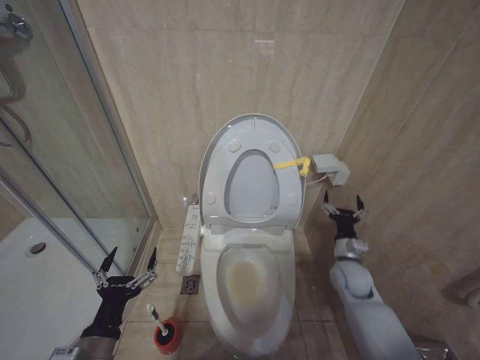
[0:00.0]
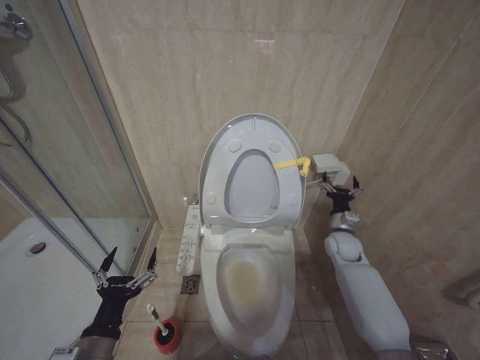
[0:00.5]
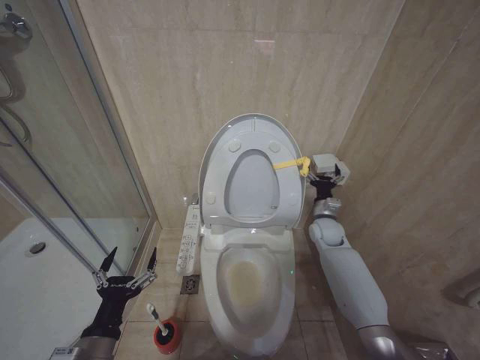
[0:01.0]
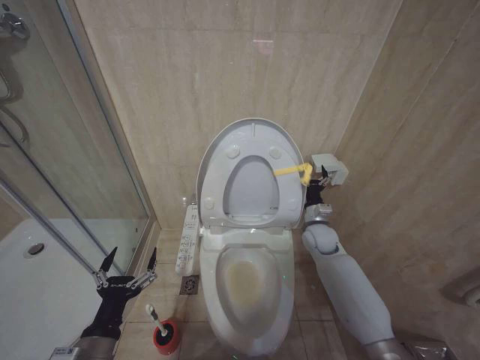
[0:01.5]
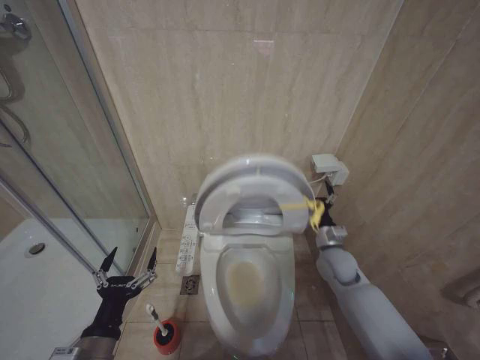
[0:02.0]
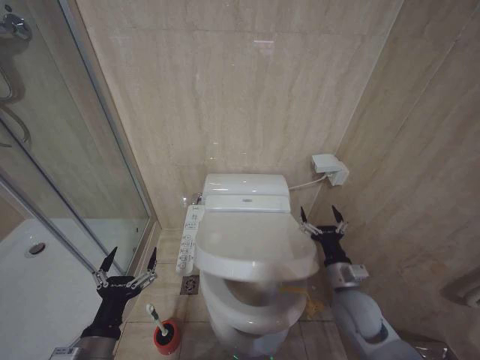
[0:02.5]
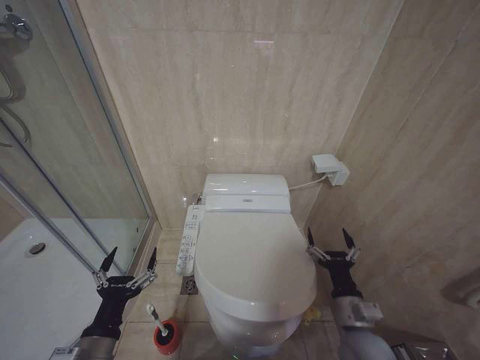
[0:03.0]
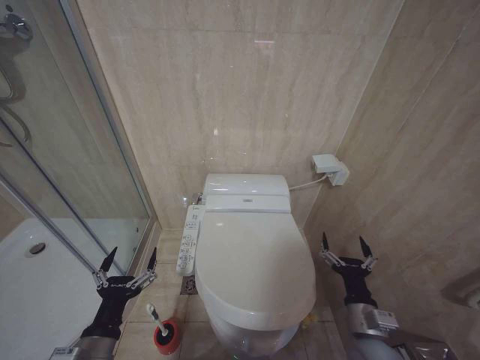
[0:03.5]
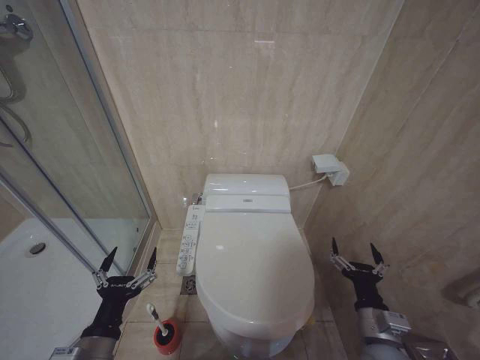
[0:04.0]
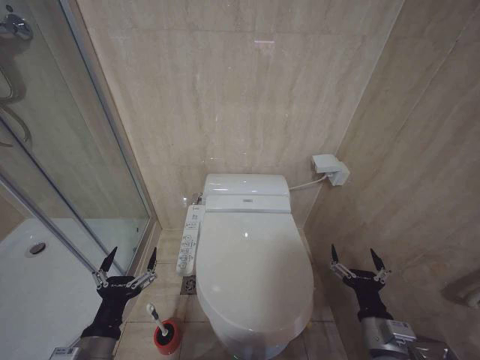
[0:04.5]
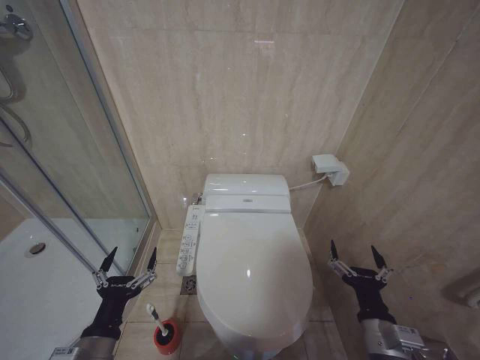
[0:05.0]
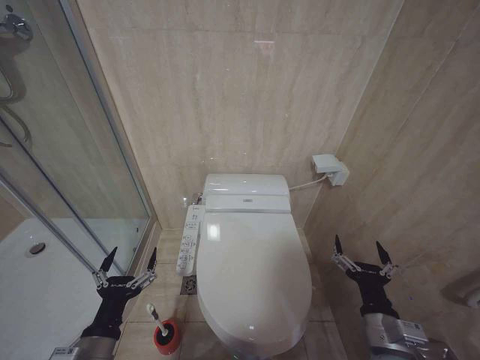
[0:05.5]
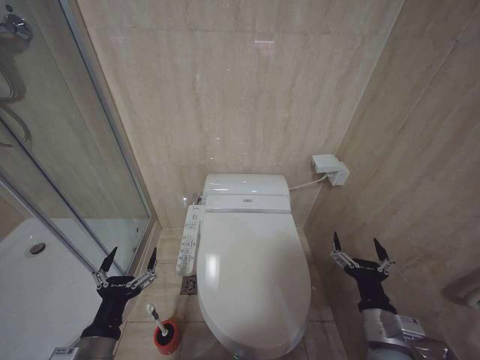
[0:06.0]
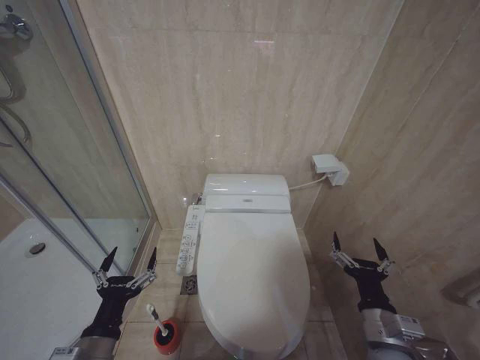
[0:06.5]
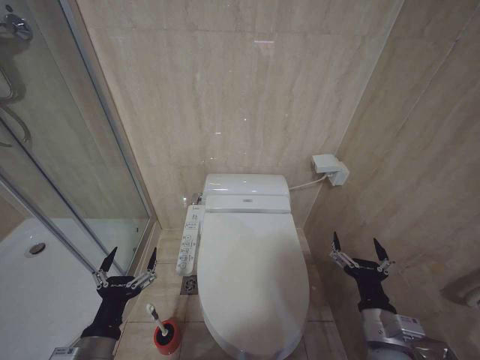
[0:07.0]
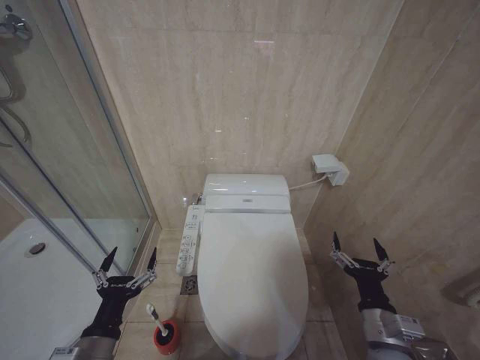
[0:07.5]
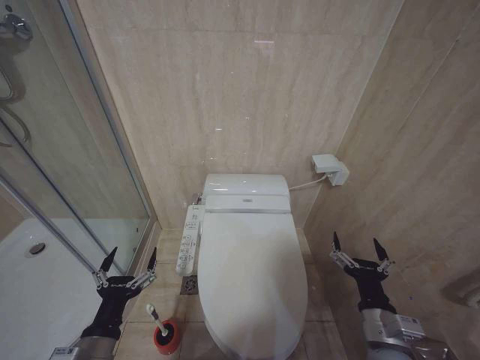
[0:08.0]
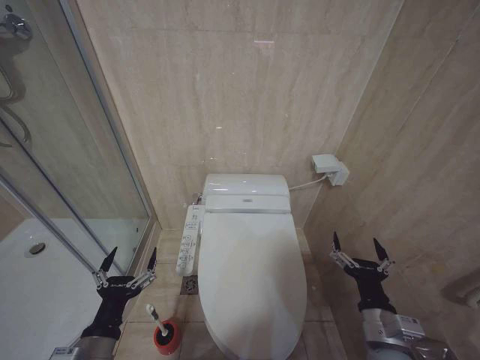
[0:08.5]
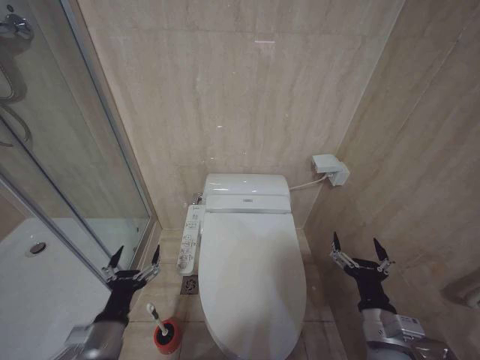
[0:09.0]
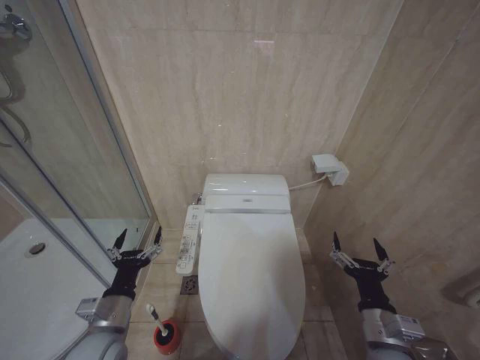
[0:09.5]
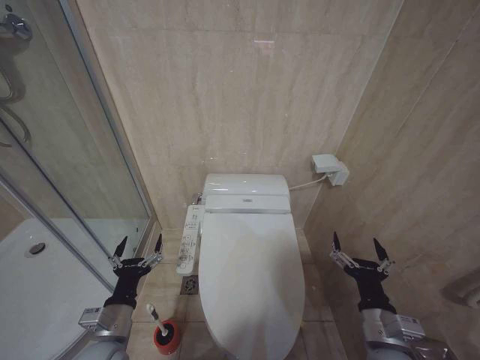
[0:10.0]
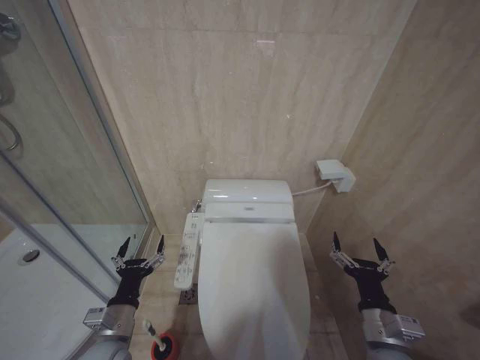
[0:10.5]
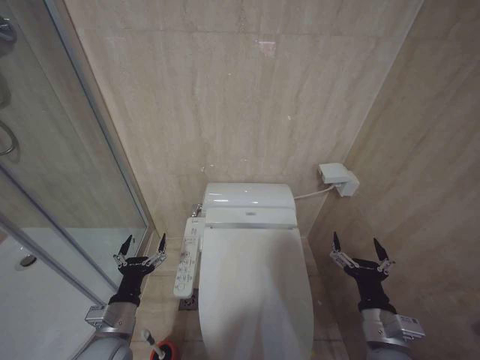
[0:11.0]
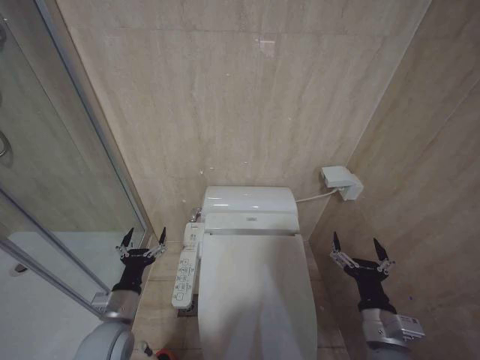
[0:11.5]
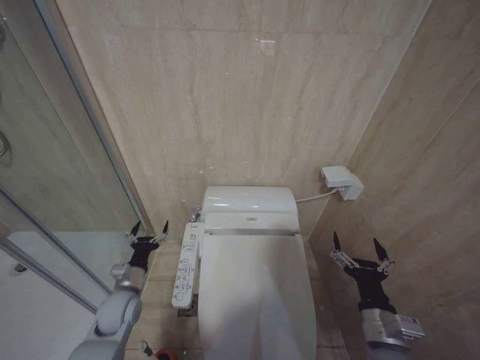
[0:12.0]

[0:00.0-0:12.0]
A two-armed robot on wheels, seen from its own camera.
Task of the whole recording: Open the toilet lid, clean the toilet bowl with a toilet brush, close the toilet lid, and flush.
0:00.0 to 0:02.0: The right gripper goes about 5 cm forward.
0:02.0 to 0:04.0: The right gripper is displaced backward by roughly 20 cm.
0:04.0 to 0:06.0: The grippers make only small movements.
0:06.0 to 0:08.0: The two grippers keep their place.
0:08.0 to 0:10.0: The left gripper heads forward, covering some 5 cm.
0:10.0 to 0:12.0: The left gripper moves forward and downward, about 10 cm.

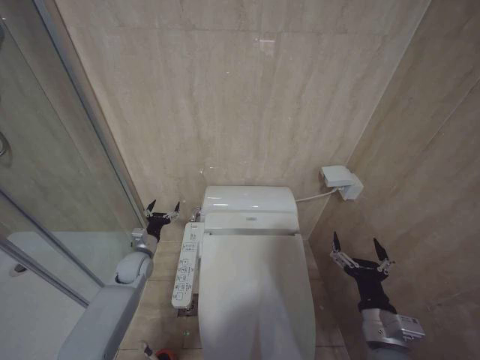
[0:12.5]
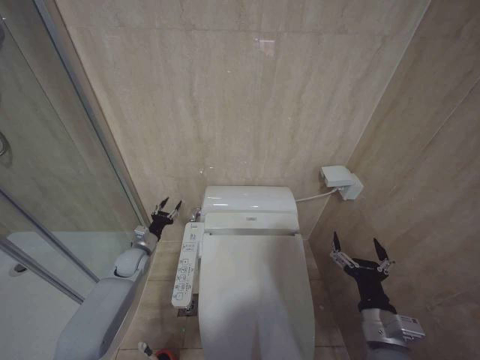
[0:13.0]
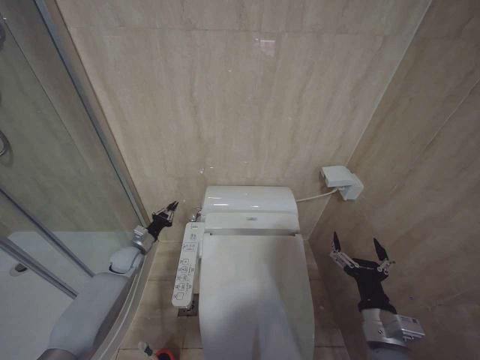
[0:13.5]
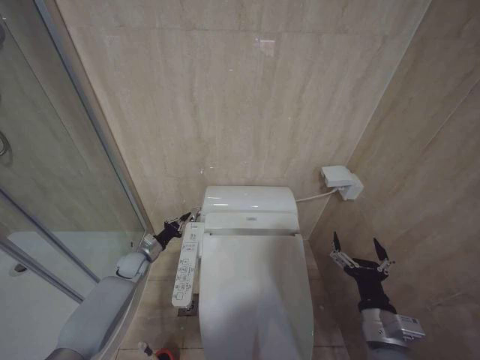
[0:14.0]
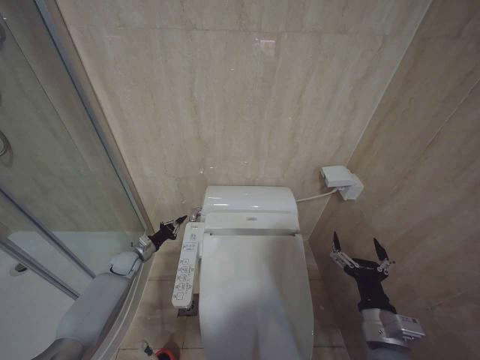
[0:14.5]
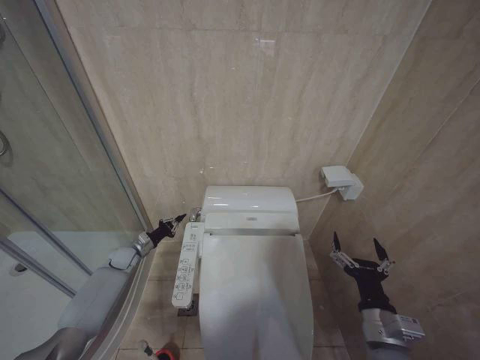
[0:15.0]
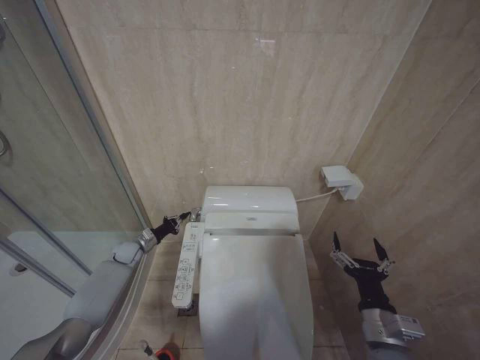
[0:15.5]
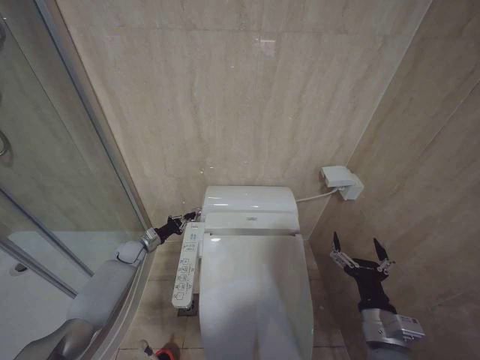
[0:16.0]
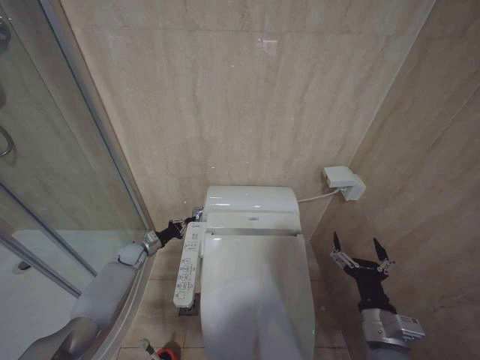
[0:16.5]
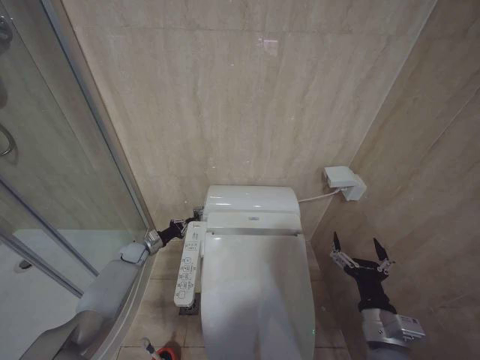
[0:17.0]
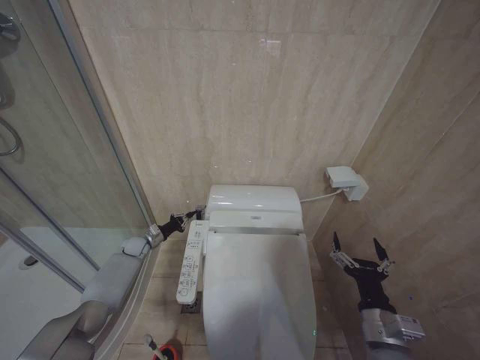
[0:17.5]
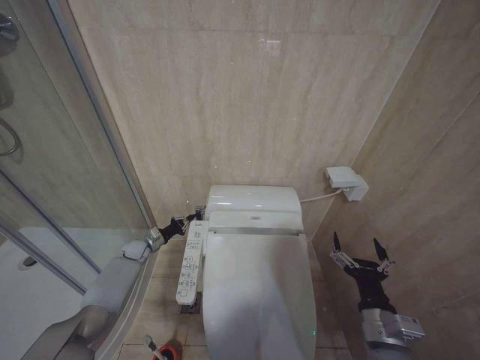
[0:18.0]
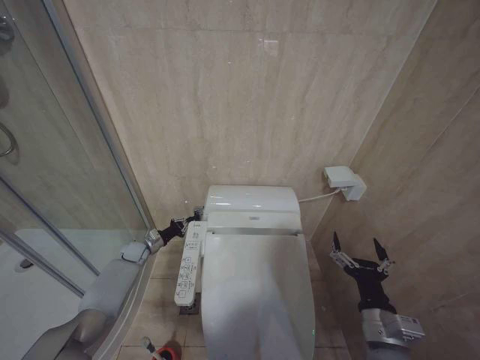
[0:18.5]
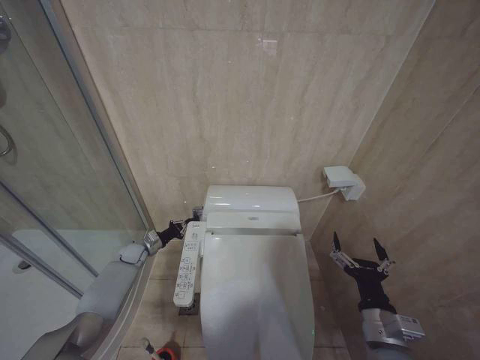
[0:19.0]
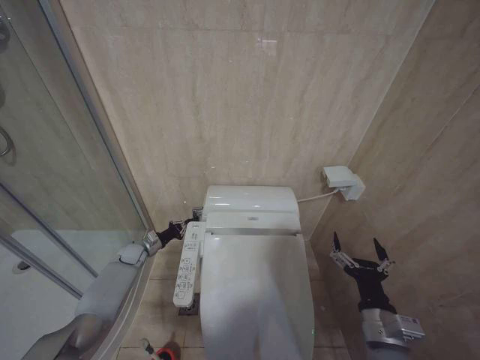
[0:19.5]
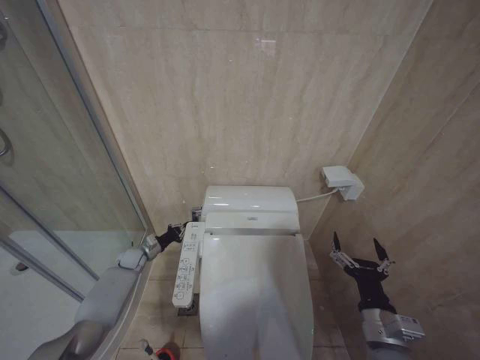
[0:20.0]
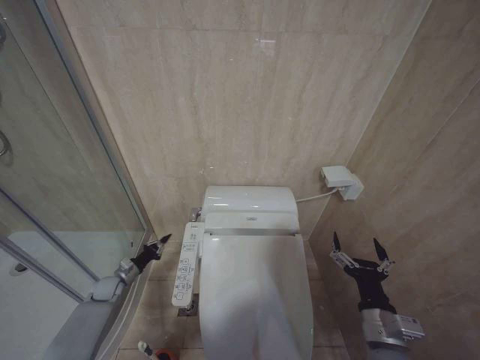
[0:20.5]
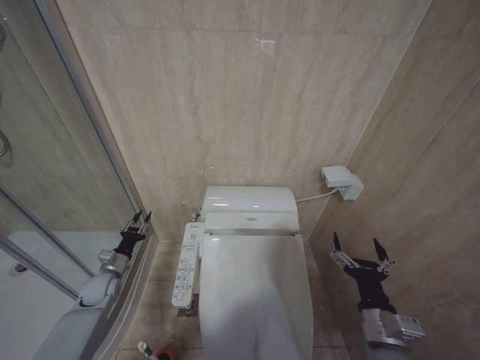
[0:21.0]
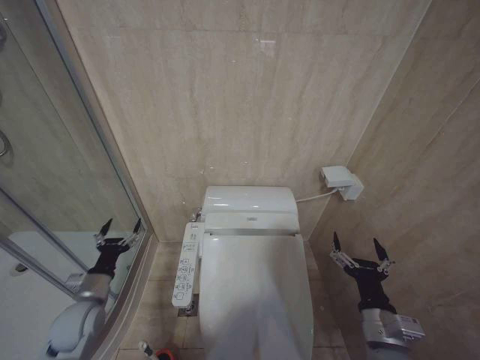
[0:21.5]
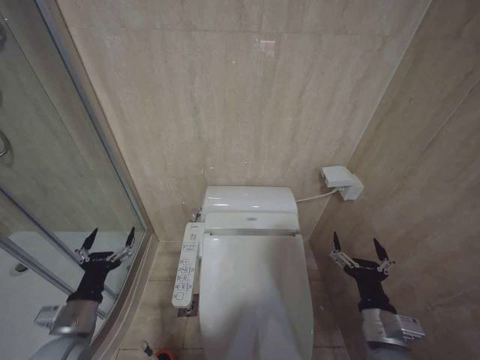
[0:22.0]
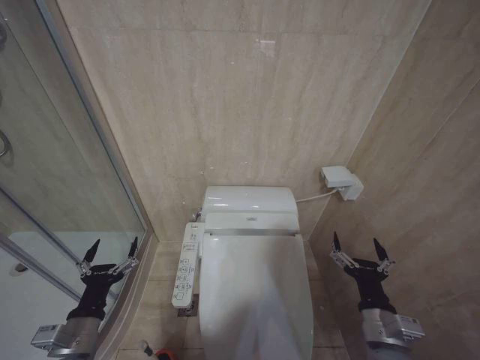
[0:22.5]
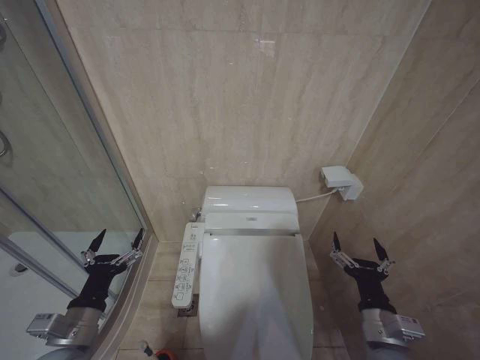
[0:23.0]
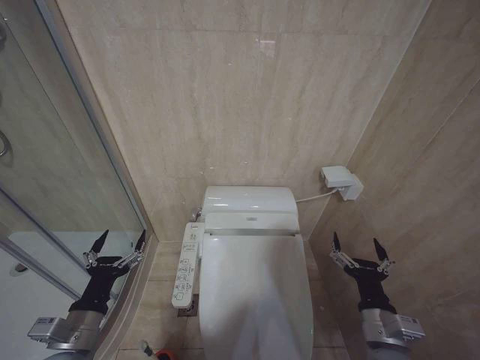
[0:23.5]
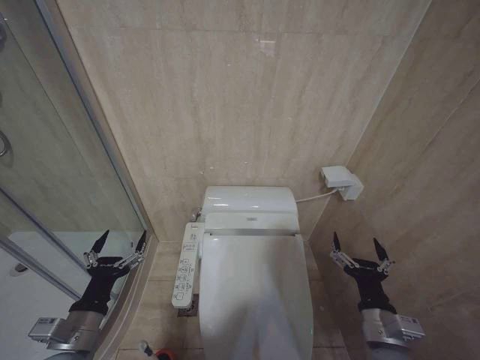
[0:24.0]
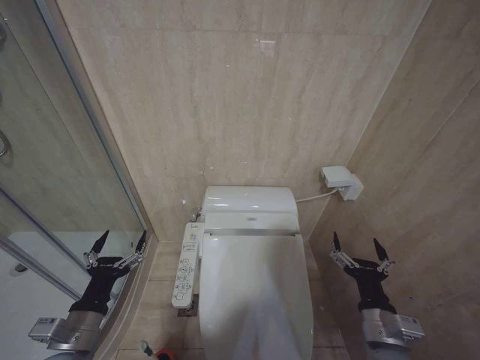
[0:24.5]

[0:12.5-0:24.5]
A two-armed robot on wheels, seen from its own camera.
Task of the whole recording: Open the toilet lid, clean the toilet bowl with a toilet brush, close the toilet lid, and flush.
0:12.5 to 0:14.5: The left gripper goes some 10 cm to the left, forward and downward, and closes up.
0:14.5 to 0:18.5: The grippers stay close to where they were, moving slightly.
0:18.5 to 0:20.5: The left gripper is displaced backward and to the left by some 10 cm.
0:20.5 to 0:22.5: The left gripper heads backward and upward, covering some 30 cm, and opens up.
0:22.5 to 0:24.5: There are only small adjustments of the grippers.

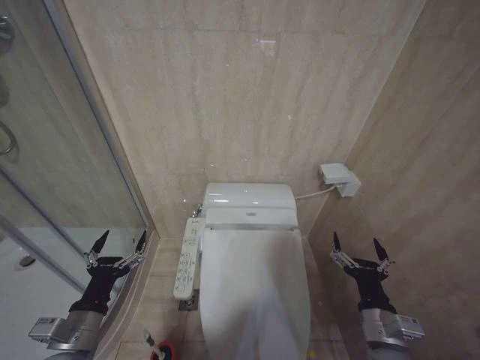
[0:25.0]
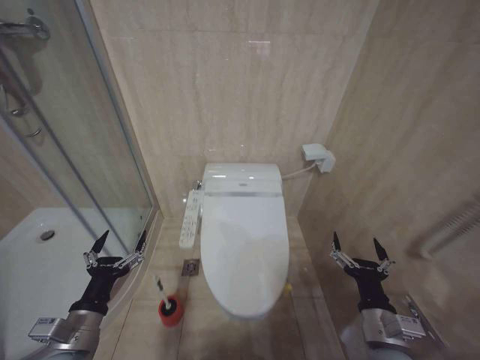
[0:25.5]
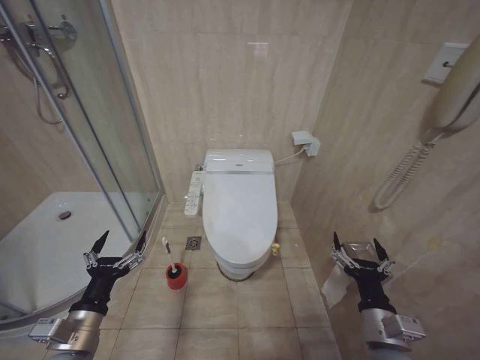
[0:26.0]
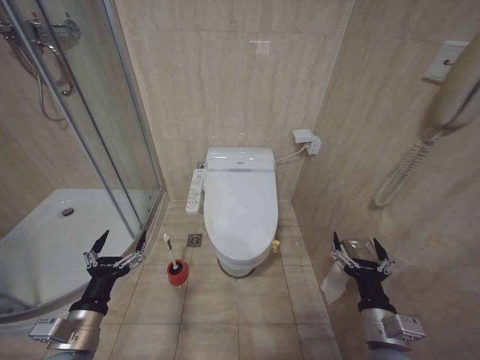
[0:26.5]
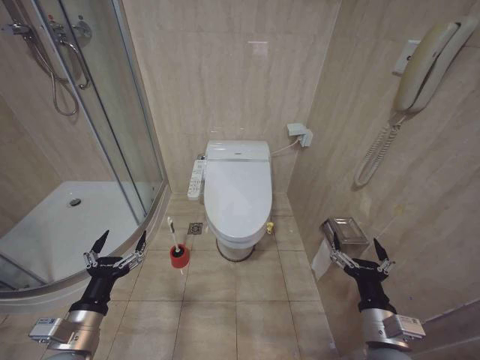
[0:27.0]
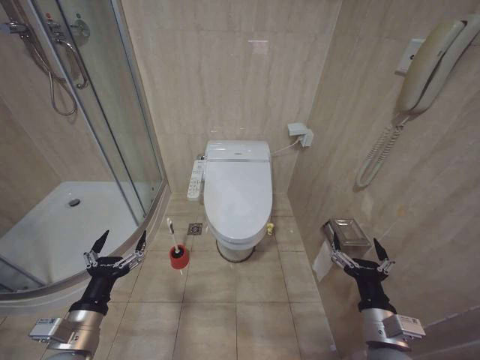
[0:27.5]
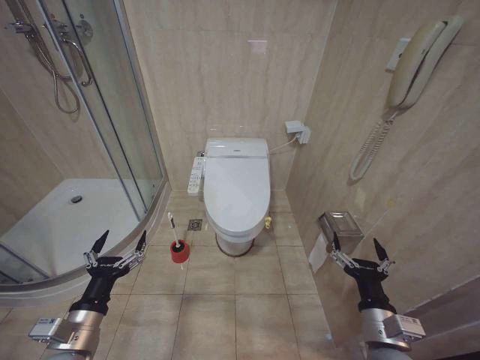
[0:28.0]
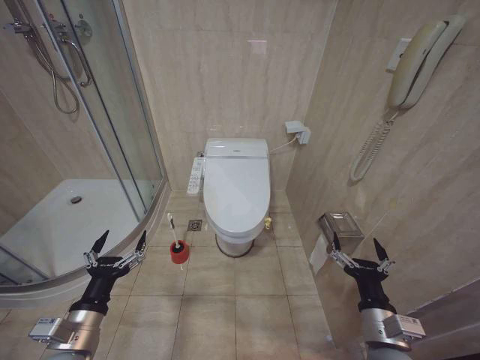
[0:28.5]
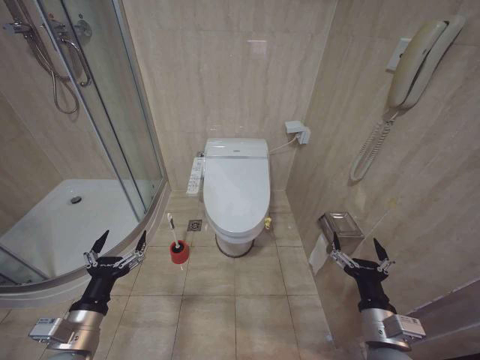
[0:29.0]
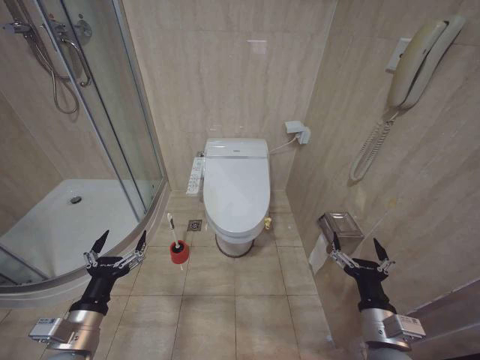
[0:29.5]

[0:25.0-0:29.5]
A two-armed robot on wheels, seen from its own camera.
Task of the whole recording: Open the toilet lid, clean the toilet bowl with a toilet brush, close the toilet lid, and flush.
0:27.0 to 0:29.5: The two grippers keep their place.
